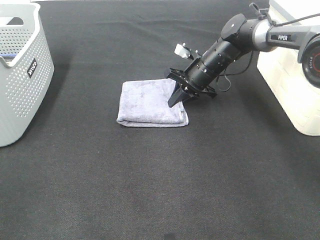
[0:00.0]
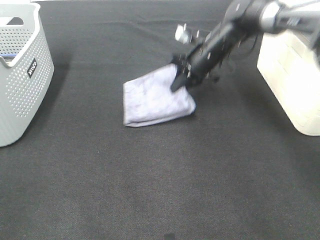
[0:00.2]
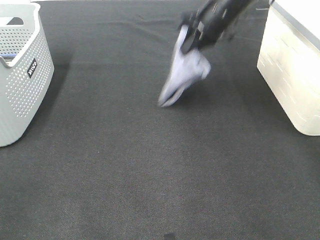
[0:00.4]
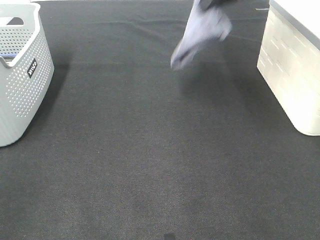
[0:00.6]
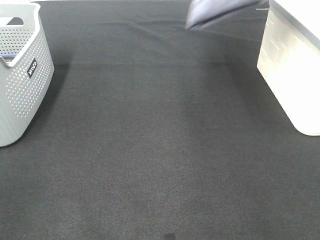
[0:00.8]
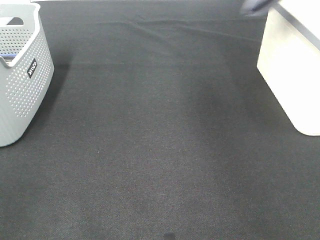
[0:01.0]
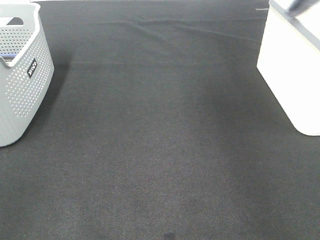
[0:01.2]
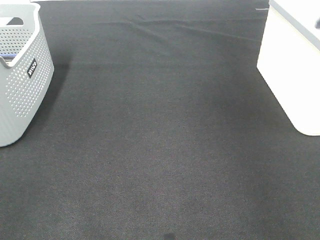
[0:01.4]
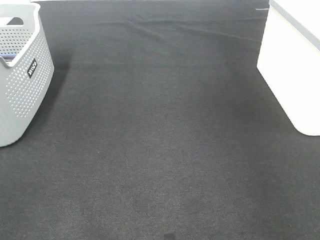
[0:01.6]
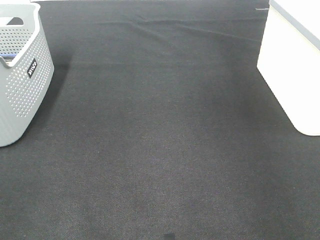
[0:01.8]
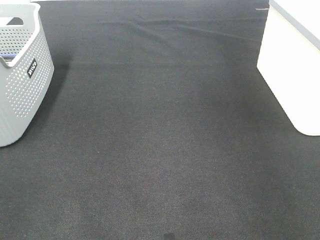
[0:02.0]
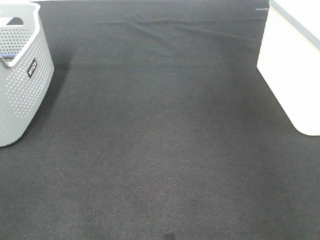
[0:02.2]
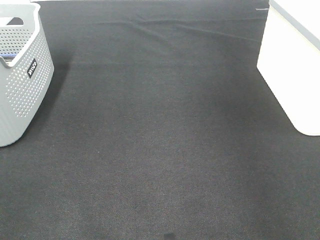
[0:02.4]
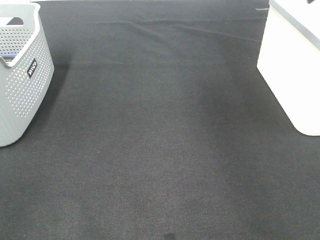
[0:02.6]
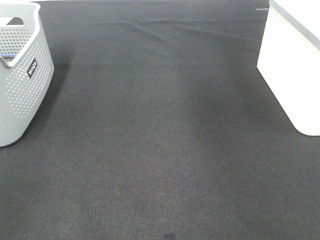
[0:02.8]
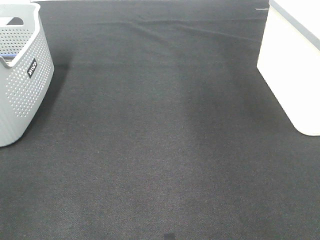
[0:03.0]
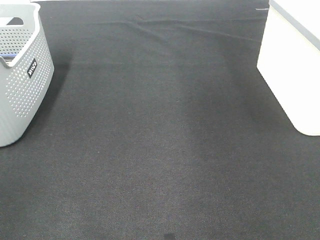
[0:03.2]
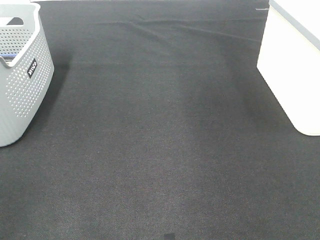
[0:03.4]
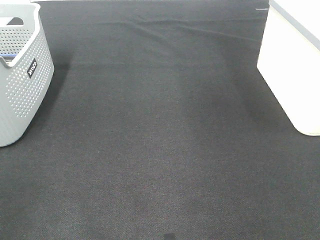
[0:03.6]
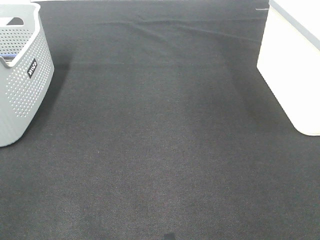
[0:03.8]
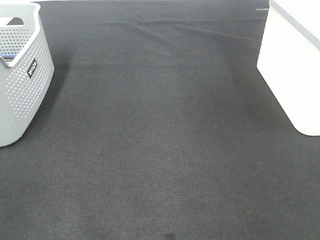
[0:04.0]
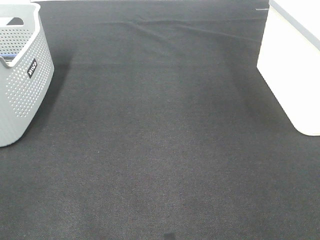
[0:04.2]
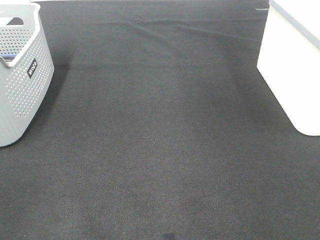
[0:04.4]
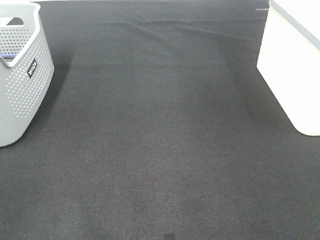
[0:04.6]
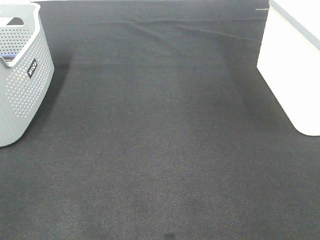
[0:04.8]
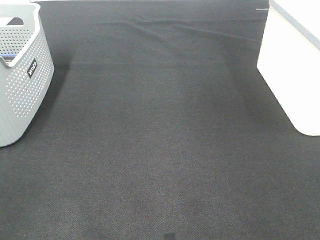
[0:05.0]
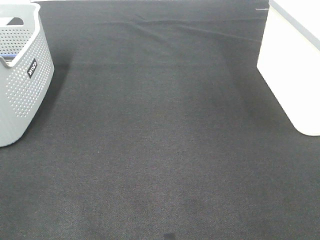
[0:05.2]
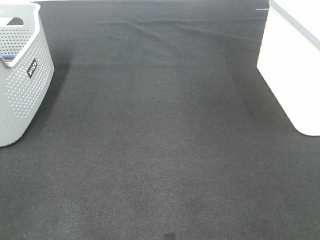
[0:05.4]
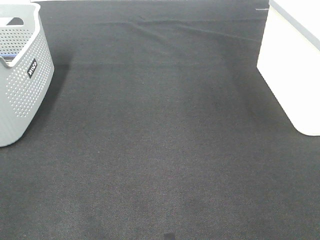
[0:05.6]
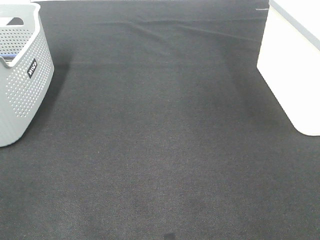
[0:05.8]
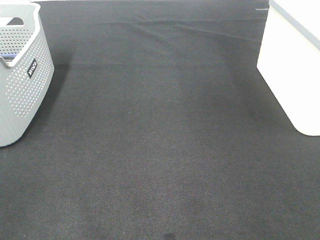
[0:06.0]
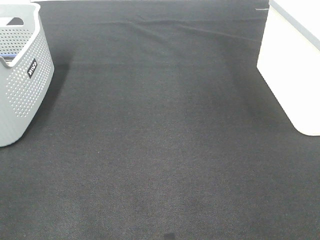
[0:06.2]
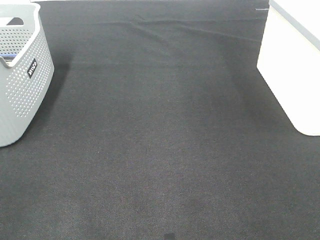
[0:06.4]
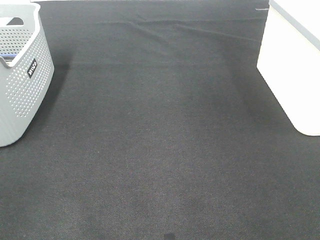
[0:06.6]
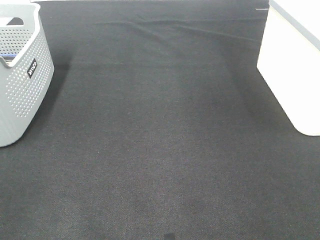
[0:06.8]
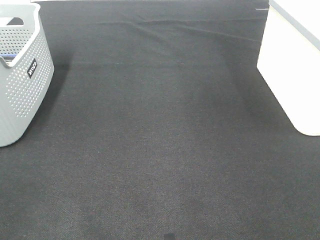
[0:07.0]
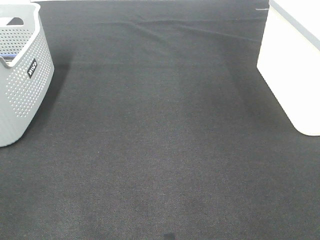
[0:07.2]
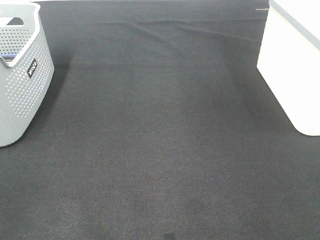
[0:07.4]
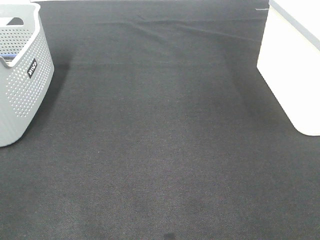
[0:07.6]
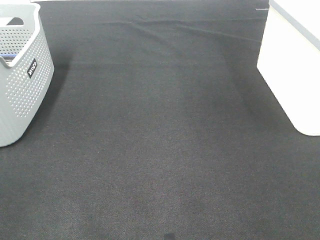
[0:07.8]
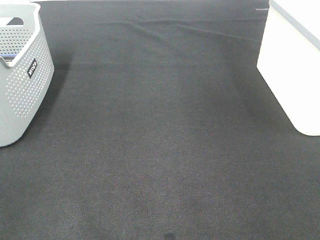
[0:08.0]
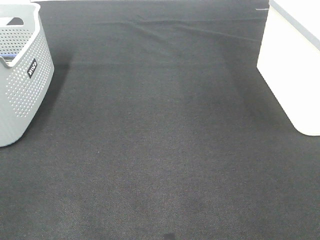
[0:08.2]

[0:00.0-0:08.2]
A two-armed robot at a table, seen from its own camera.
Step, 0:00.0 to 0:02.2: Right hand: place the grey towel in right basket.
0:00.0 to 0:01.6: The right gripper moves to the right and upward, about 40 cm.
0:05.0 to 0:08.2: Neither gripper changes place.

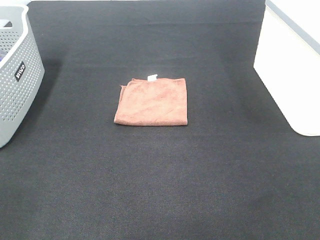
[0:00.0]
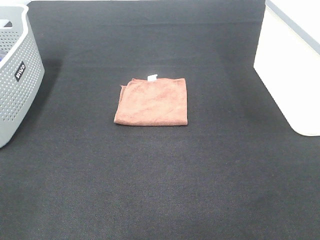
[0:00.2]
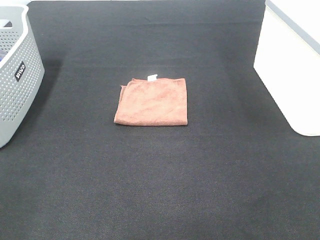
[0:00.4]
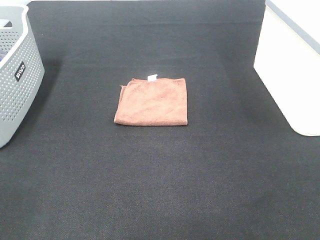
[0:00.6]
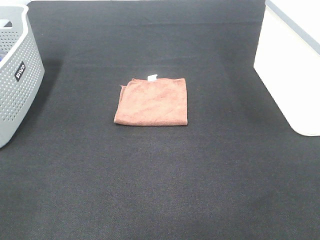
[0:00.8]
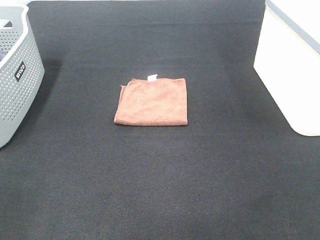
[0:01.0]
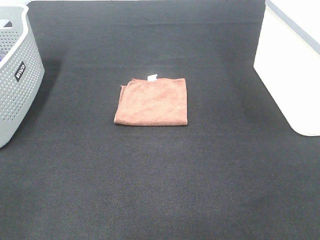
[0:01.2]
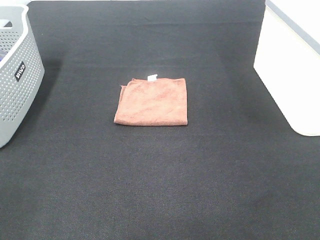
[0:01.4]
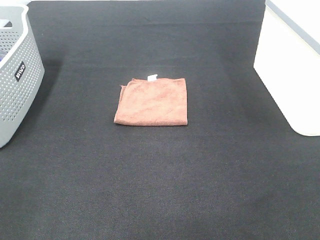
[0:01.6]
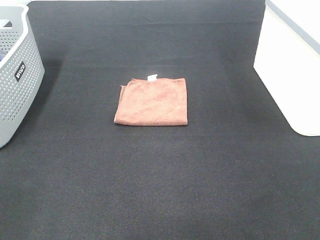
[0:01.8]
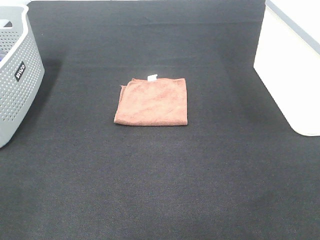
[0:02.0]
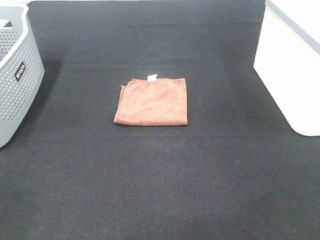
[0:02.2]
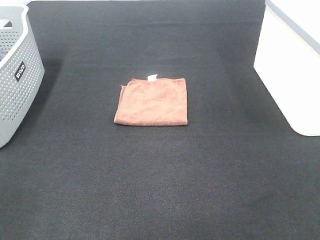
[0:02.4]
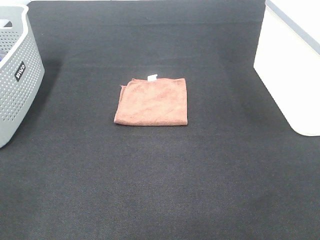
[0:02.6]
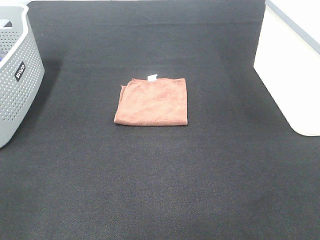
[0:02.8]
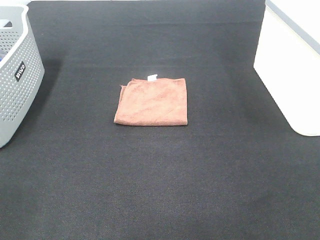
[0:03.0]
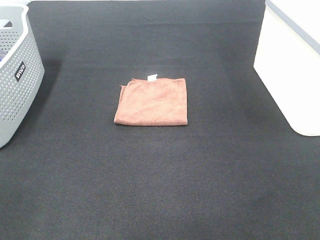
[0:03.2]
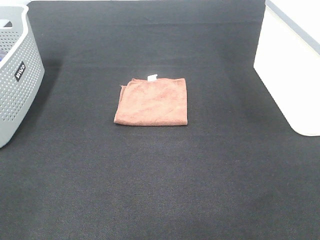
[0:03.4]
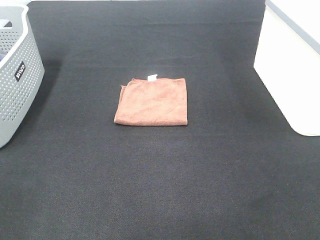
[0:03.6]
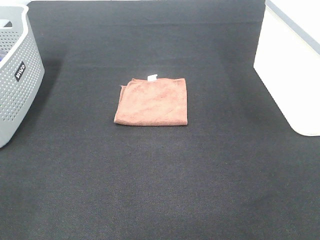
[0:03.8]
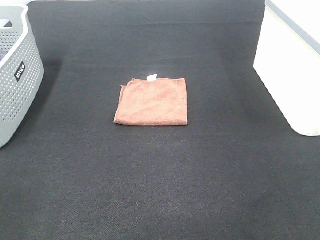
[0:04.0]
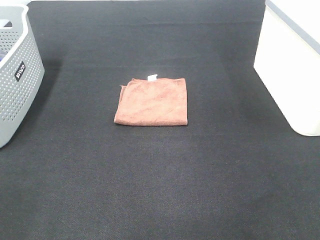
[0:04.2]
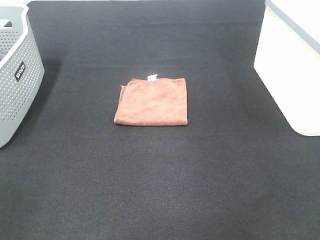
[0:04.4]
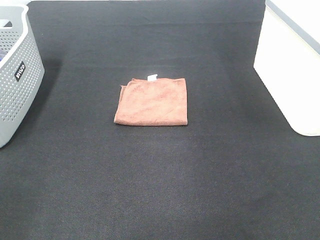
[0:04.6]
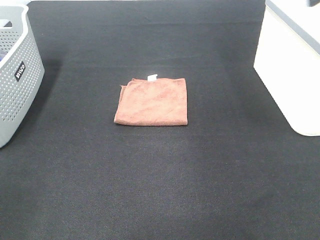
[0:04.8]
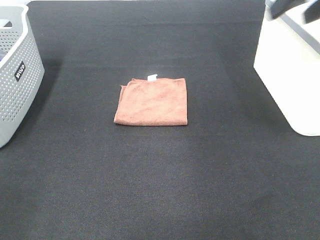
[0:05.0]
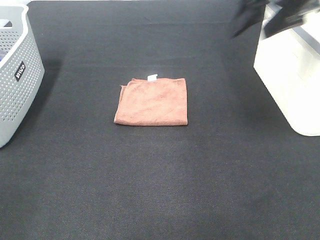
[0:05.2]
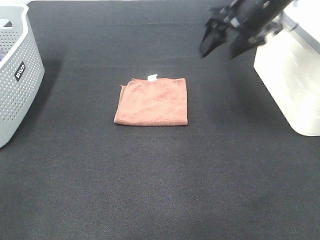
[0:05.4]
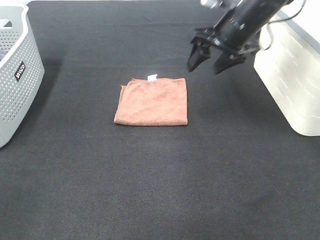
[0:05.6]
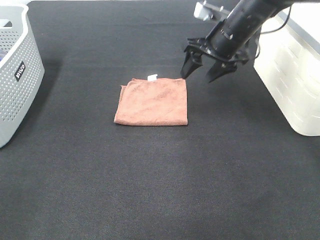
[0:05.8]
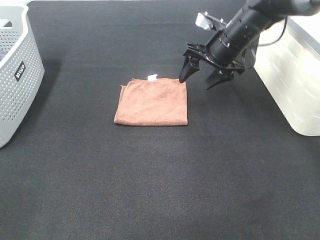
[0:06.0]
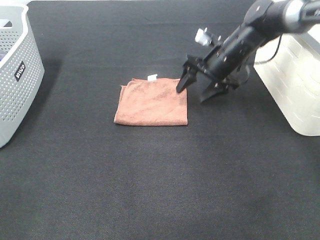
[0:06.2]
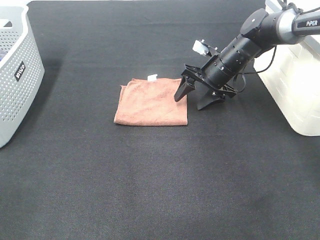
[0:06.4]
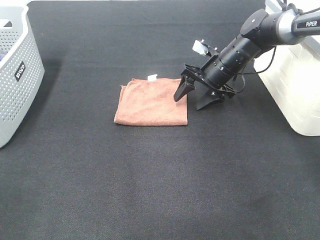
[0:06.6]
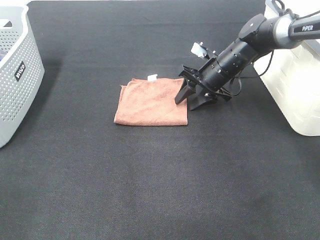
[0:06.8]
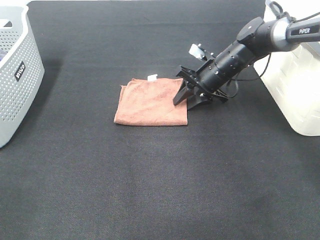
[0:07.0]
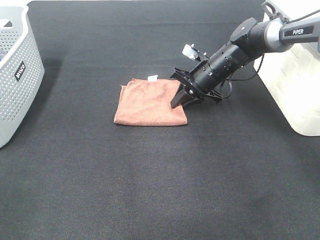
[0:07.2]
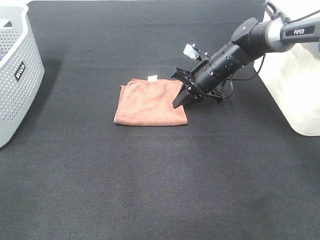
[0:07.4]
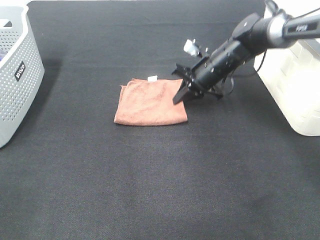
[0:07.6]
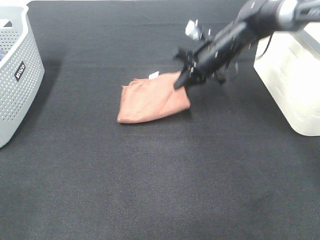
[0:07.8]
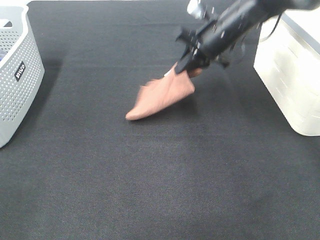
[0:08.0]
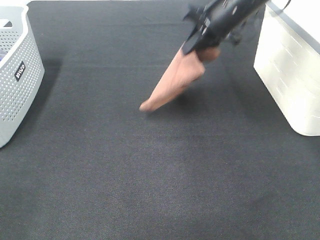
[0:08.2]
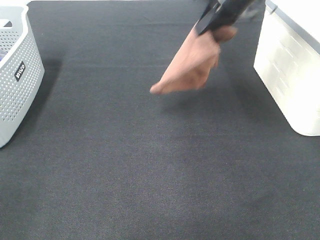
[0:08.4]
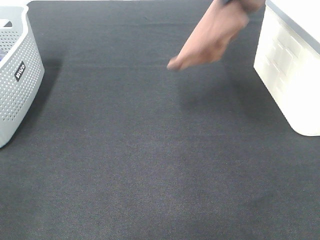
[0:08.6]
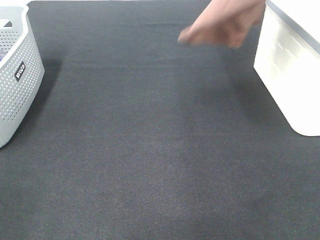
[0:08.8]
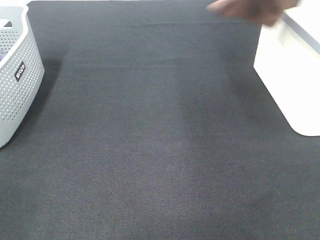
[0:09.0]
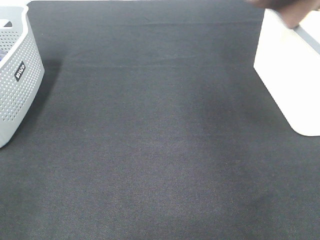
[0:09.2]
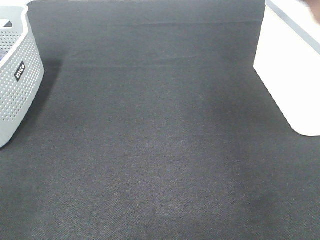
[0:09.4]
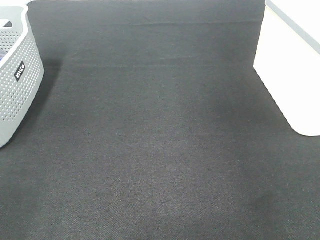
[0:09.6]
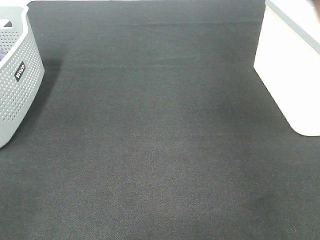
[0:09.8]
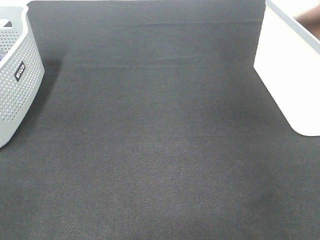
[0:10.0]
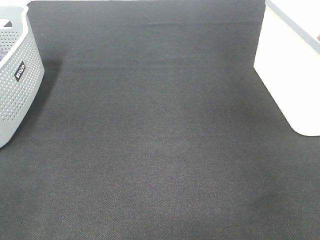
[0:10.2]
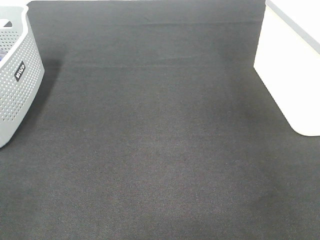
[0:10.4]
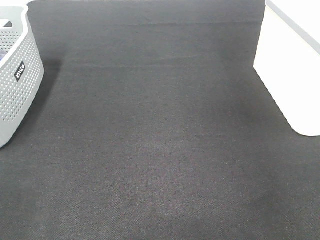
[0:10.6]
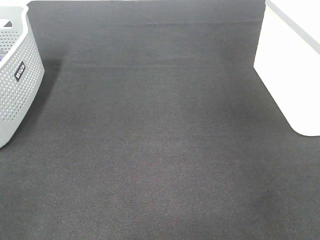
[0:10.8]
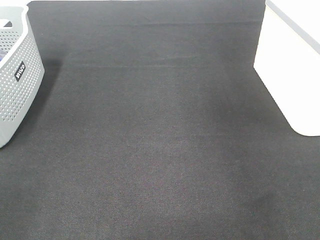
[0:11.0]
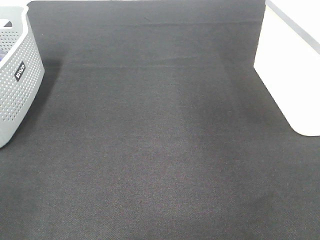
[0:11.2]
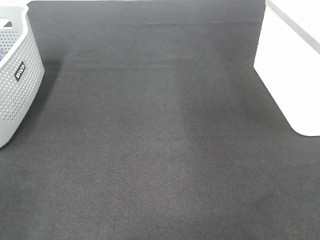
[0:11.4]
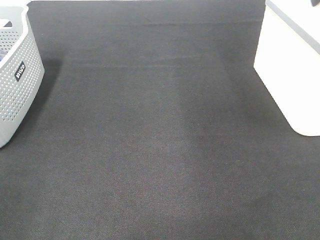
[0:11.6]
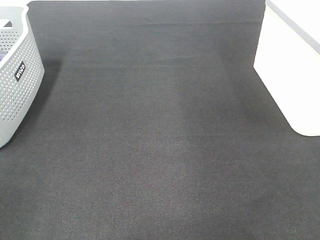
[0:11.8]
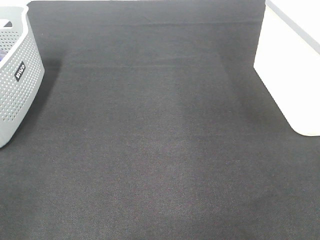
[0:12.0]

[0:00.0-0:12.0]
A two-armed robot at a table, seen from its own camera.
Step, 0:00.0 to 0:07.6: Right hand: grab the folded brown towel.
Step, 0:07.8 to 0:10.6: Right hand: place the brown towel in right basket.
0:00.0 to 0:03.0: Neither gripper changes place.
0:04.4 to 0:06.0: The right gripper moves forward, downward and to the left, about 40 cm.
0:06.0 to 0:07.6: The right gripper is displaced downward by roughly 5 cm, and closes up.
0:07.6 to 0:09.0: The right gripper is displaced upward and to the right by approximately 35 cm.
0:09.0 to 0:10.4: The right gripper moves to the right and downward, roughly 15 cm, and opens its fingers.

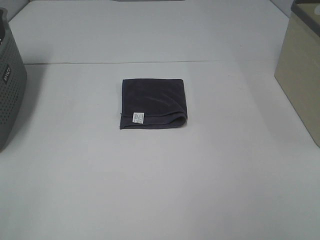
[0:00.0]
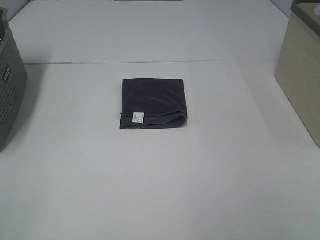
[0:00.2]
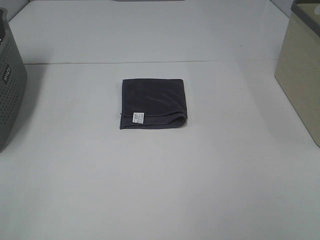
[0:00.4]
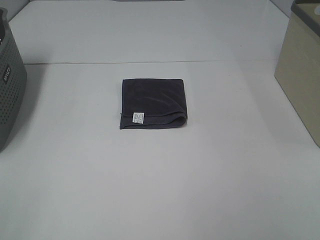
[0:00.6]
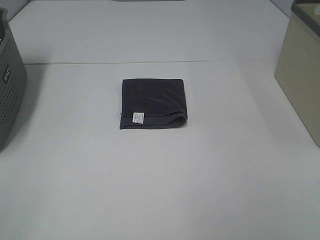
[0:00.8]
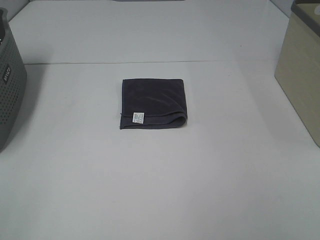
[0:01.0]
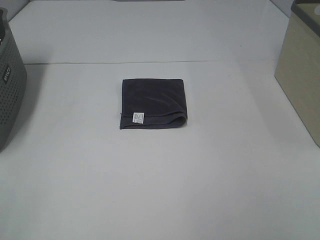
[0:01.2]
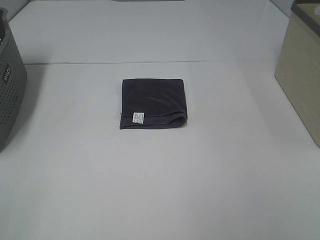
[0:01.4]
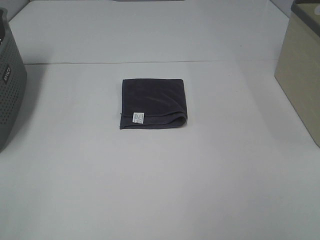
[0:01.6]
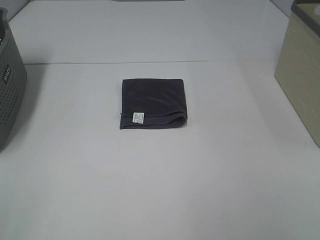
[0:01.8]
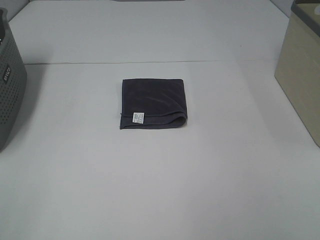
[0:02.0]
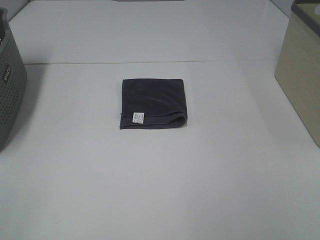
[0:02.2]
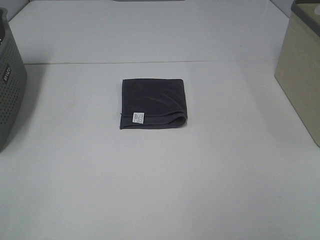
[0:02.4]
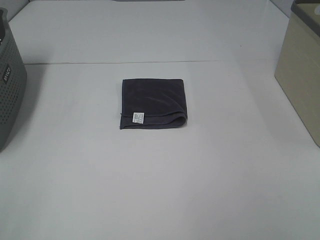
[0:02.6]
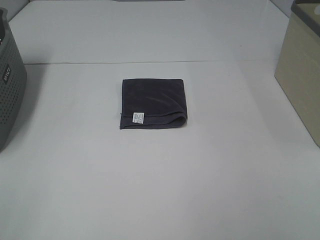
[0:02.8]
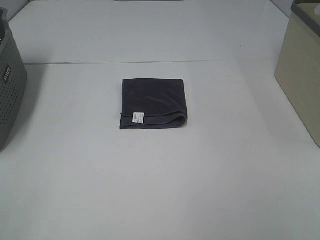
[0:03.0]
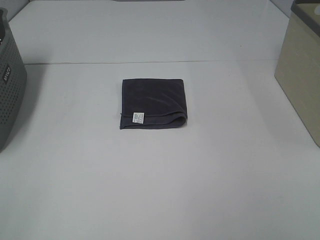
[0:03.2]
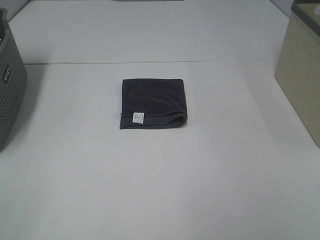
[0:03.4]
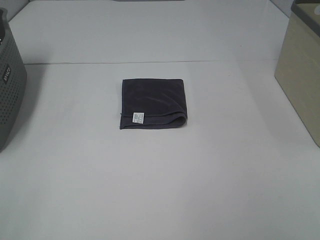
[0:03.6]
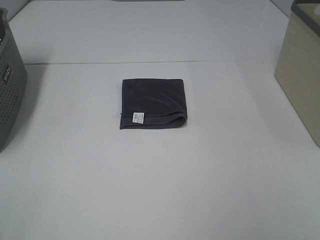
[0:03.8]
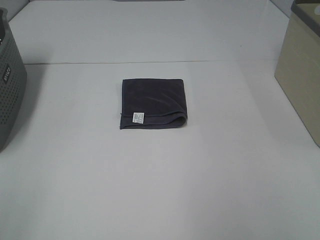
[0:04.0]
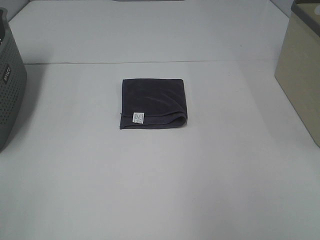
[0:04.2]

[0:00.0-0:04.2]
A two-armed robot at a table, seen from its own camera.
0:00.0 to 0:02.8: Neither gripper changes place.
